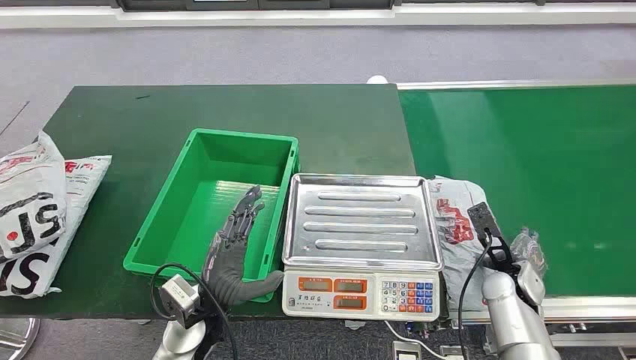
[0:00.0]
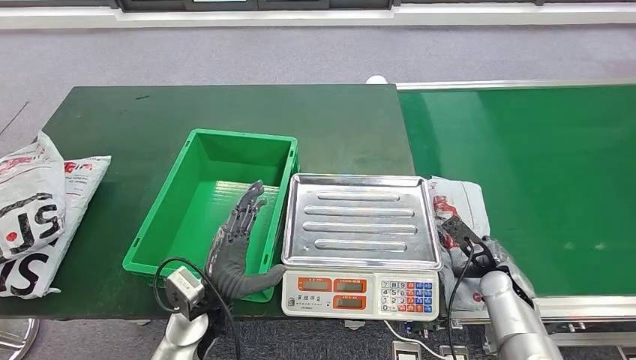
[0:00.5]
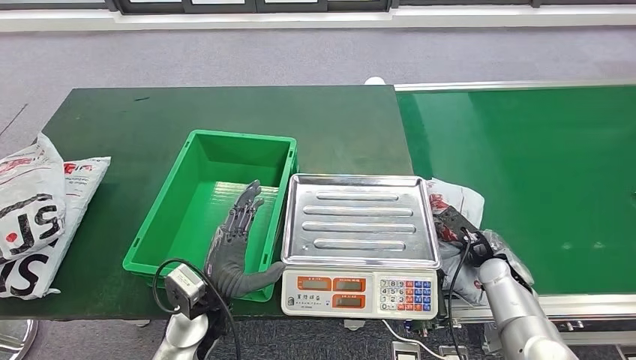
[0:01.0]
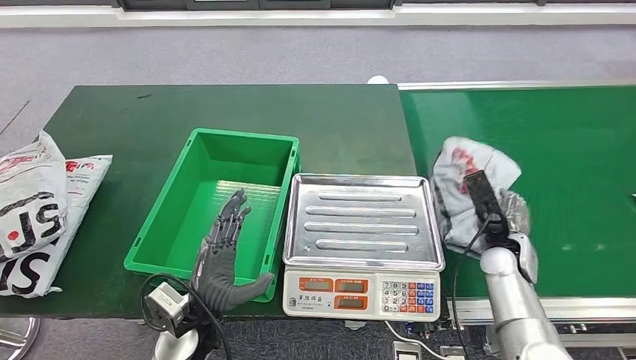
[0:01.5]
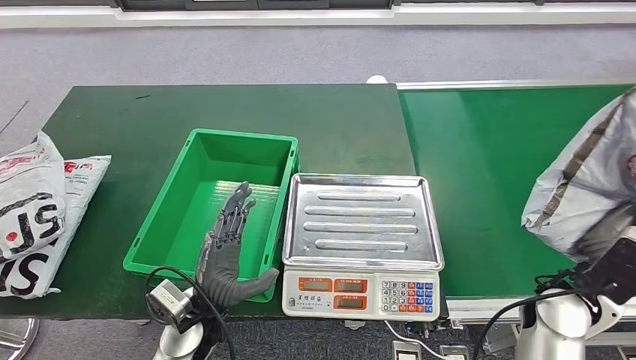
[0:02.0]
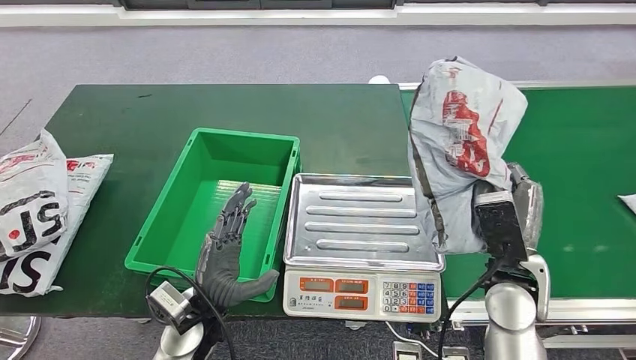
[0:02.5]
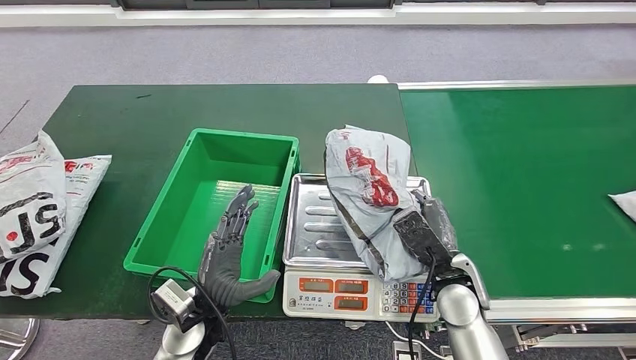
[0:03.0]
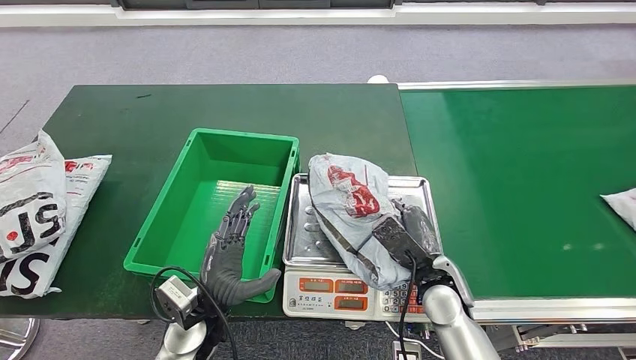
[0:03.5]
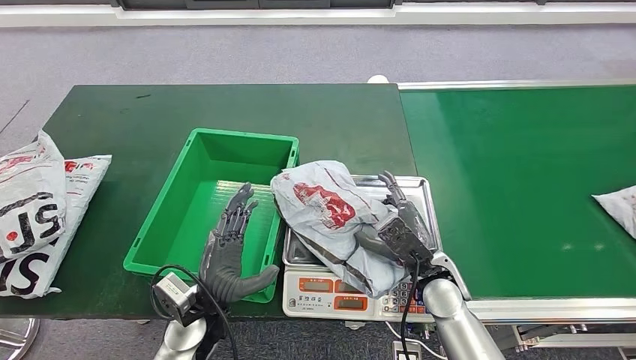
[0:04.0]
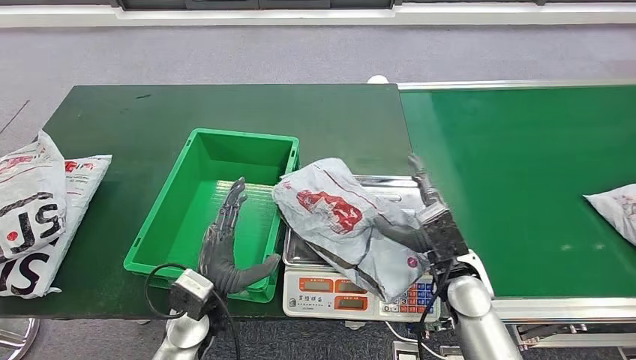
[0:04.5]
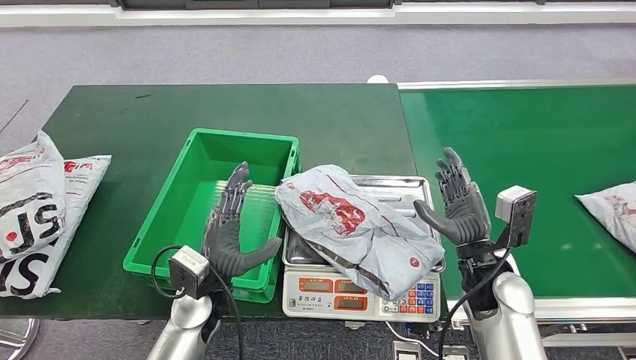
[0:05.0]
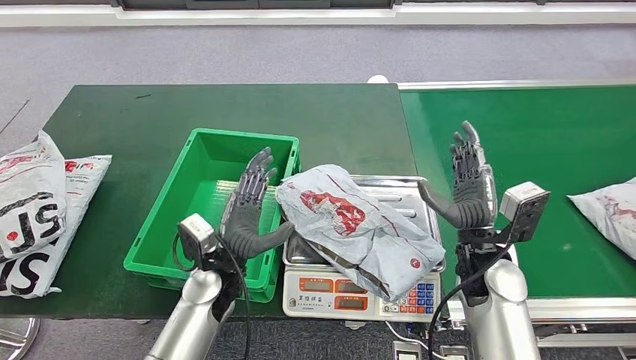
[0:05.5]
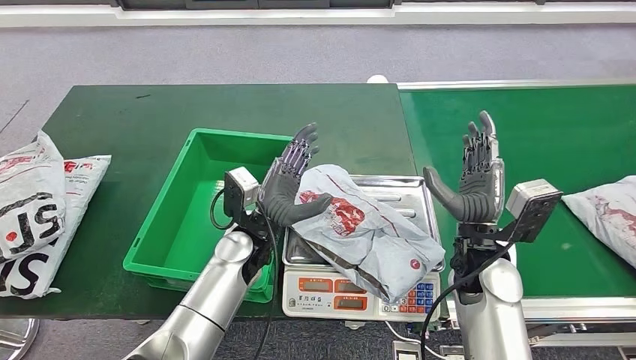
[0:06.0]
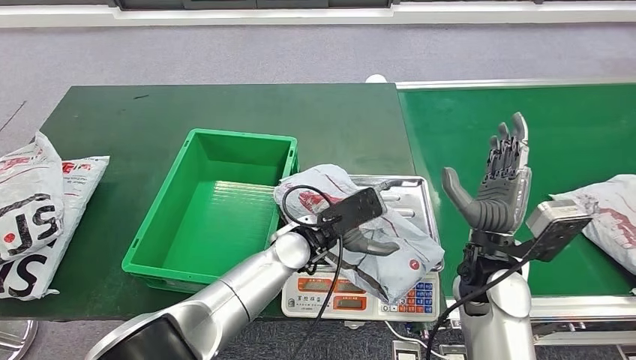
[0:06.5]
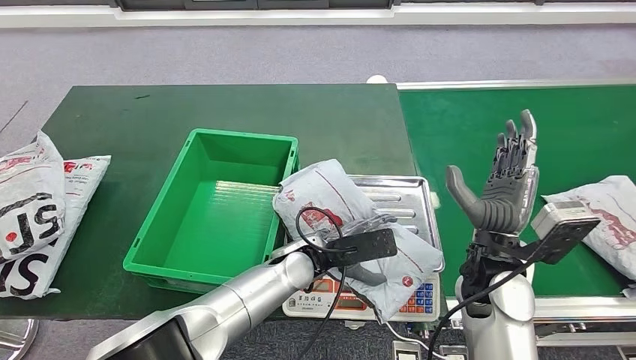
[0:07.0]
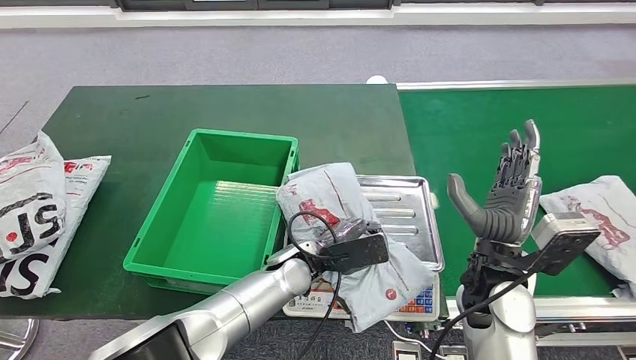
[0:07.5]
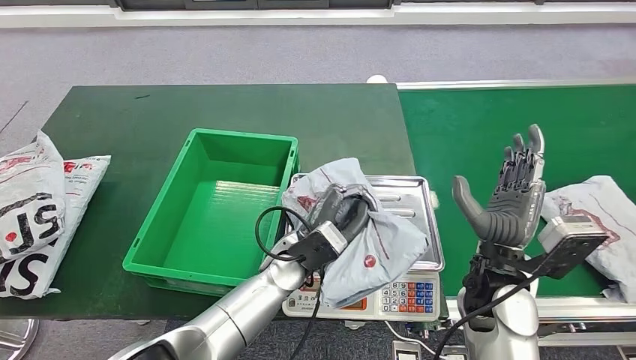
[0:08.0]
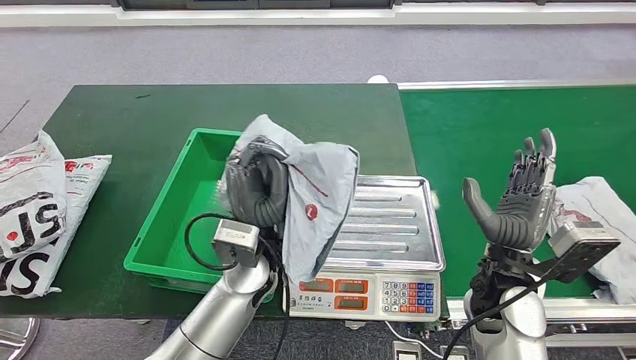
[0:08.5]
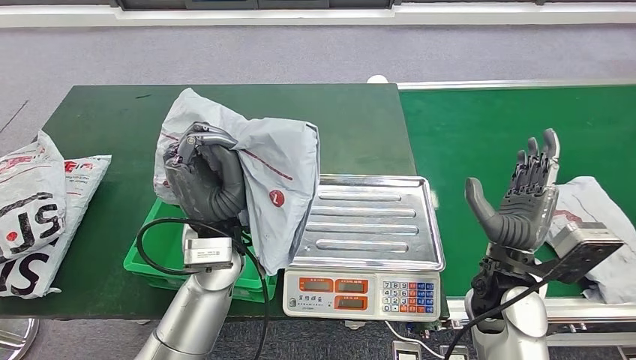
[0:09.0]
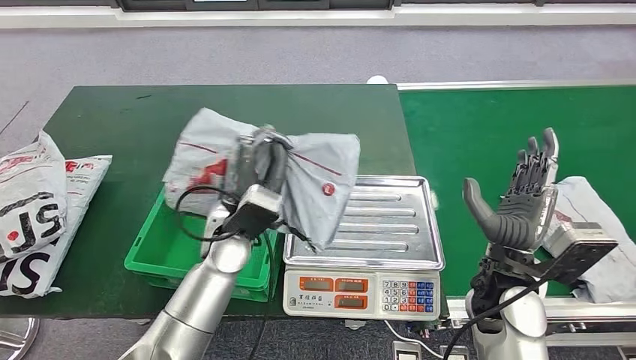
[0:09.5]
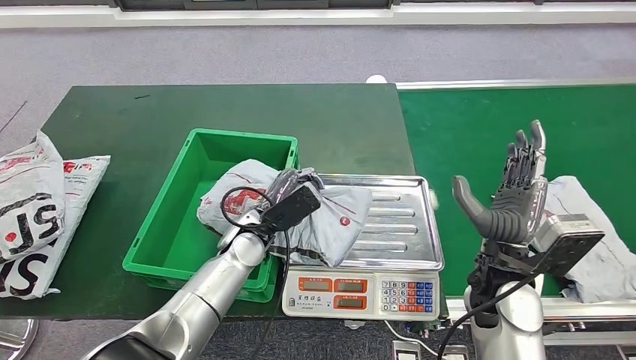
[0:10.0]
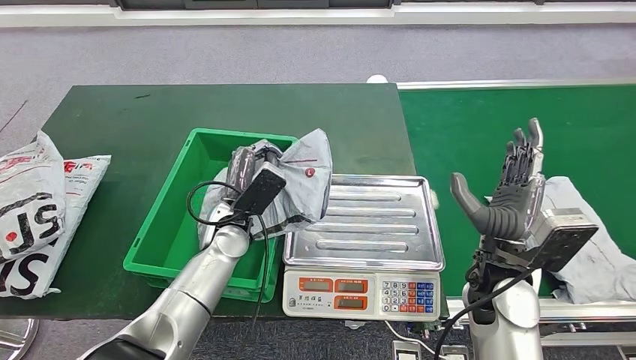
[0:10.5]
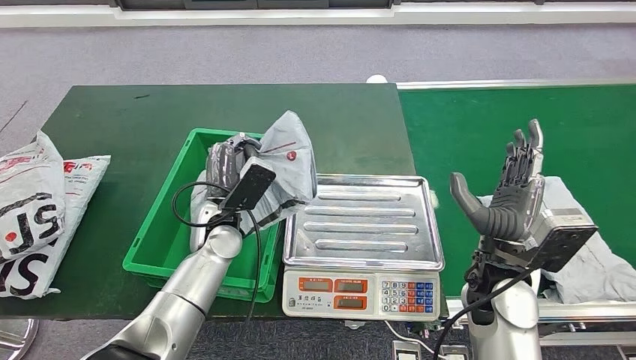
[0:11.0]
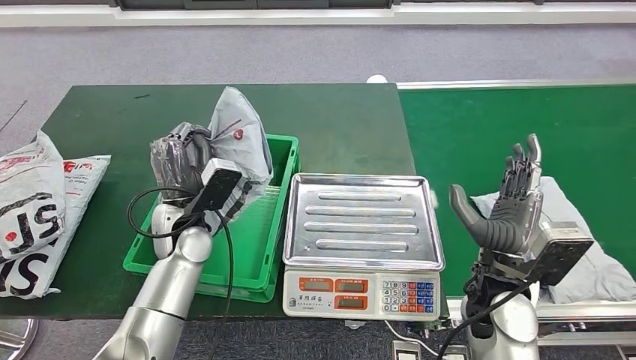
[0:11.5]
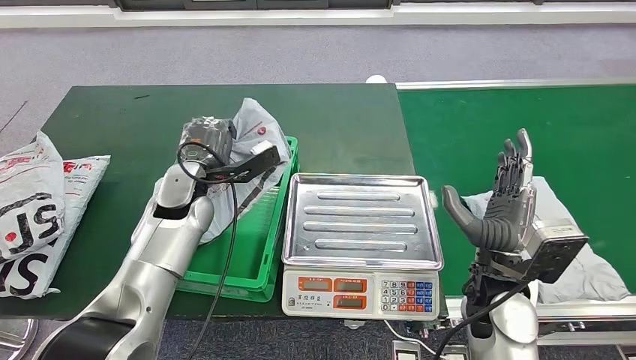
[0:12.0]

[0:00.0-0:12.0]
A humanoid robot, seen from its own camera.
Step, 0:00.0 to 0:02.5: Take the parcel off the conveyor belt.
Step, 0:03.0 to 0:05.0: Place the parcel onto the inbound machine.
Step, 0:05.5 to 0:08.5: Pick up the parcel from the inbound machine.
0:02.0 to 0:04.0: The right hand travels to the left and downward by about 15 cm.
0:04.0 to 0:06.0: The right hand travels upward by some 10 cm; the left hand heads forward, to the right and upward, covering some 15 cm.
0:08.0 to 0:10.0: The left hand goes roughly 10 cm to the left, and moves roughly 10 cm upward and comes back.

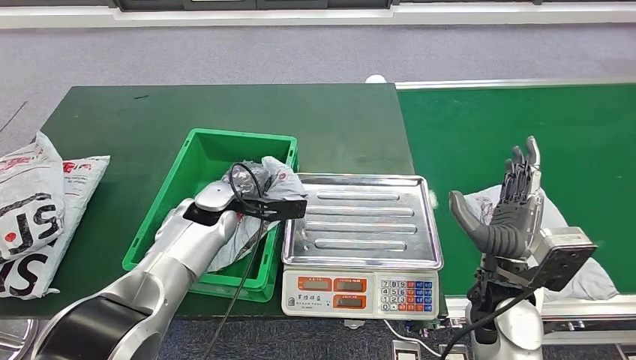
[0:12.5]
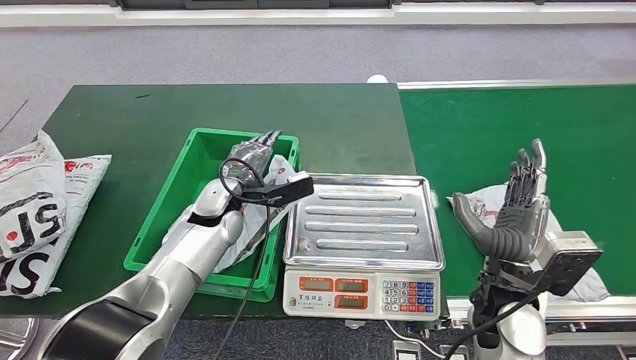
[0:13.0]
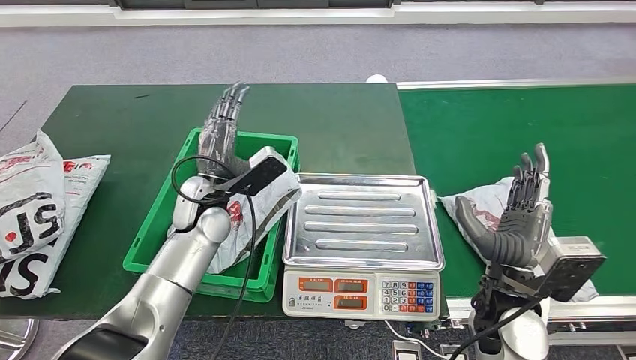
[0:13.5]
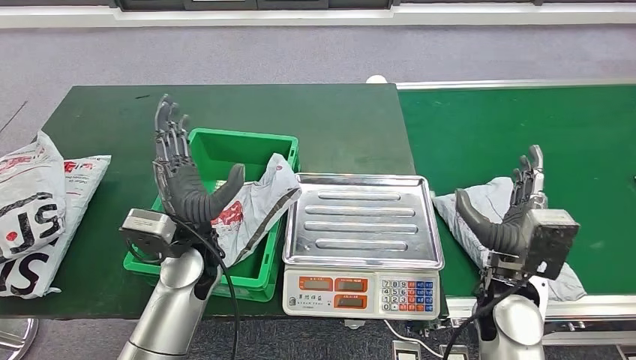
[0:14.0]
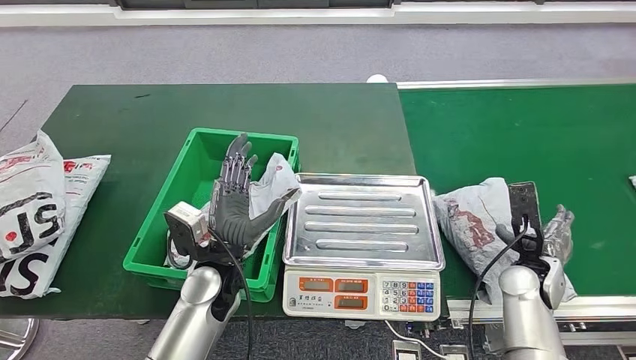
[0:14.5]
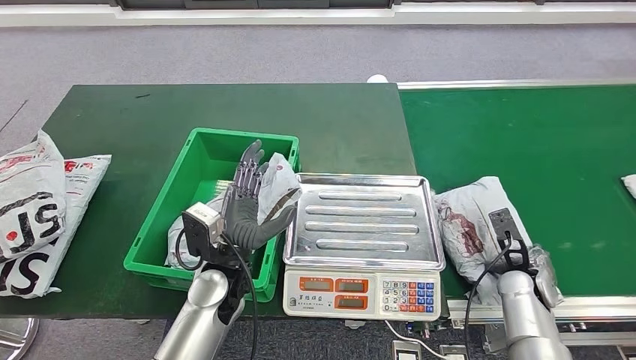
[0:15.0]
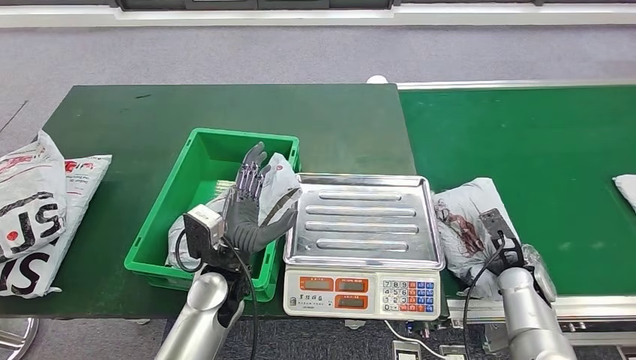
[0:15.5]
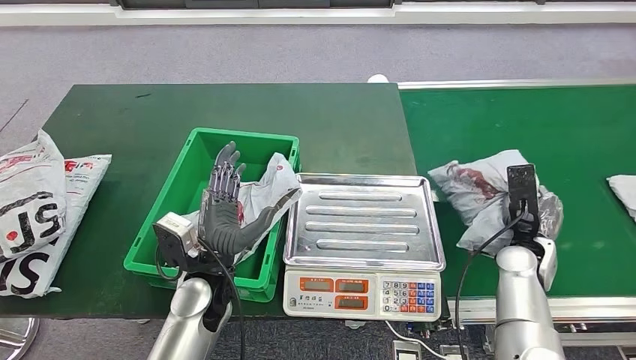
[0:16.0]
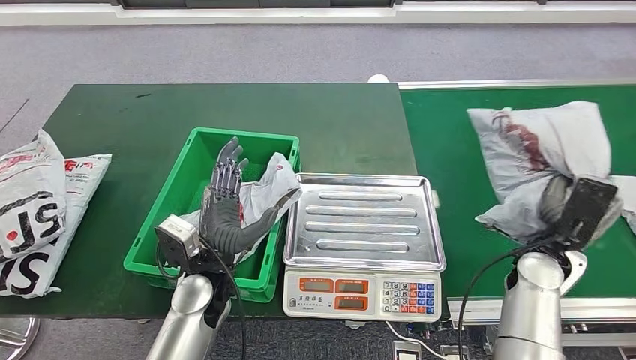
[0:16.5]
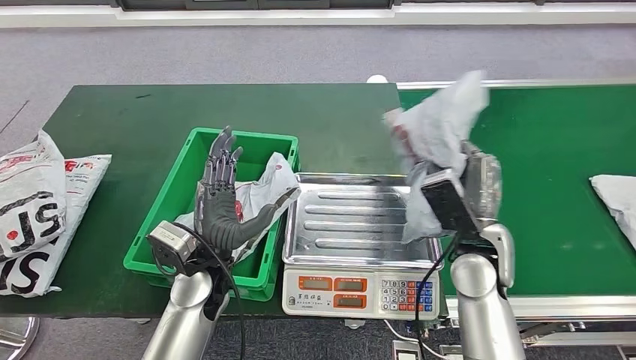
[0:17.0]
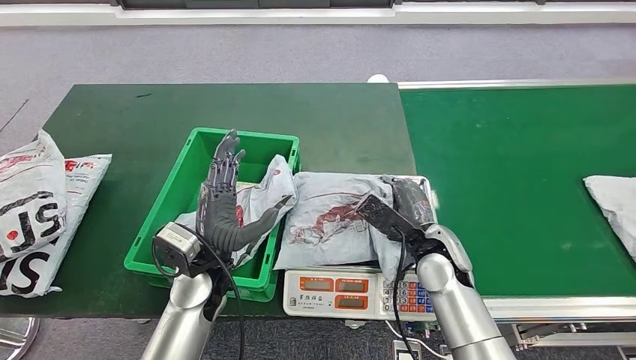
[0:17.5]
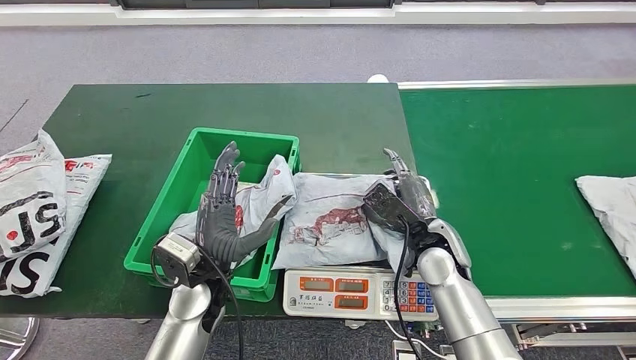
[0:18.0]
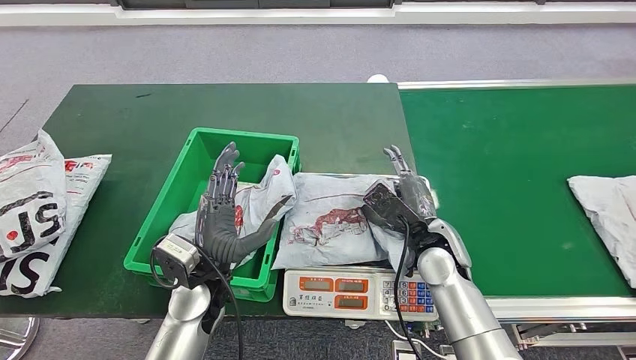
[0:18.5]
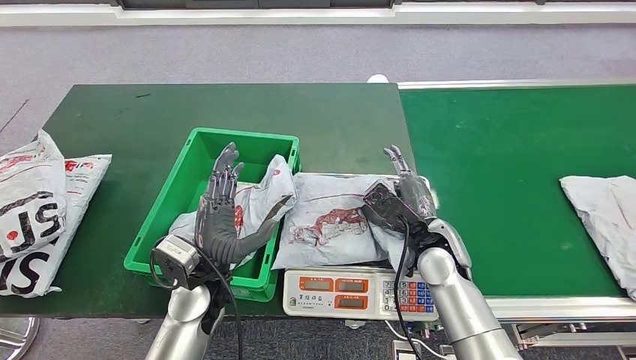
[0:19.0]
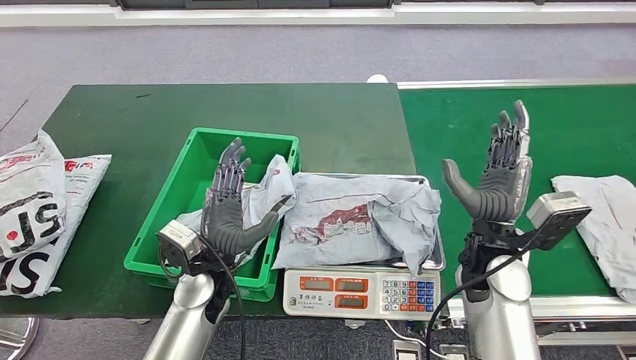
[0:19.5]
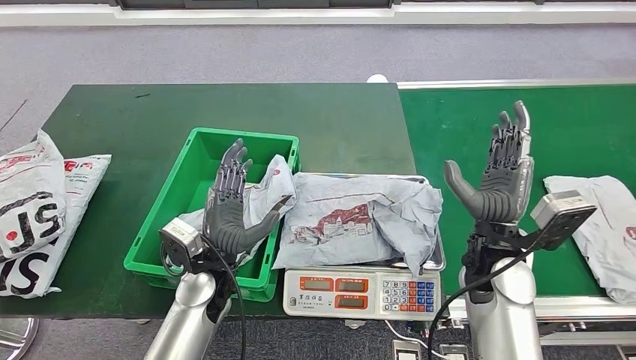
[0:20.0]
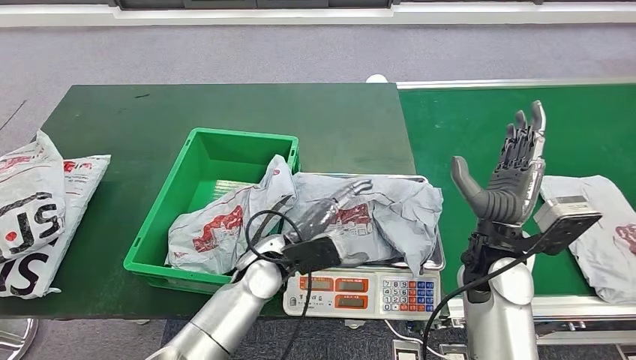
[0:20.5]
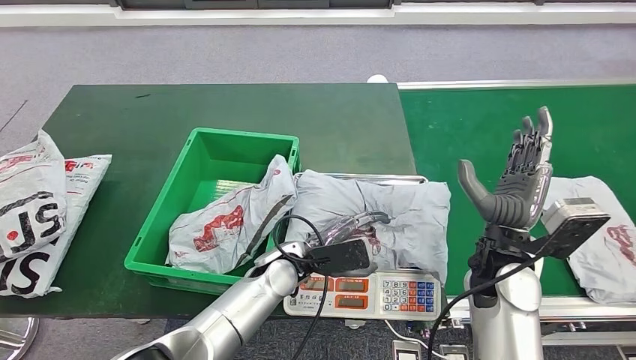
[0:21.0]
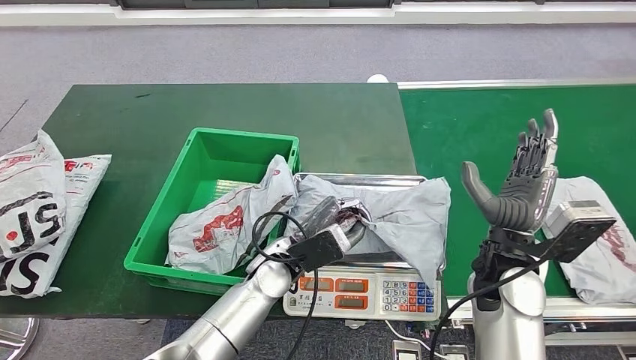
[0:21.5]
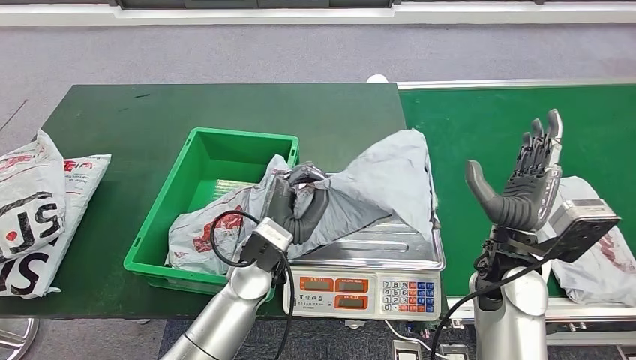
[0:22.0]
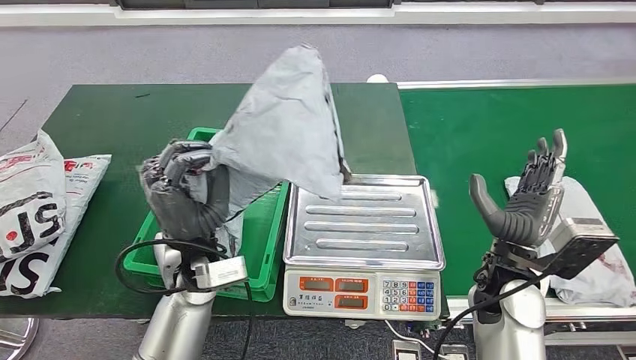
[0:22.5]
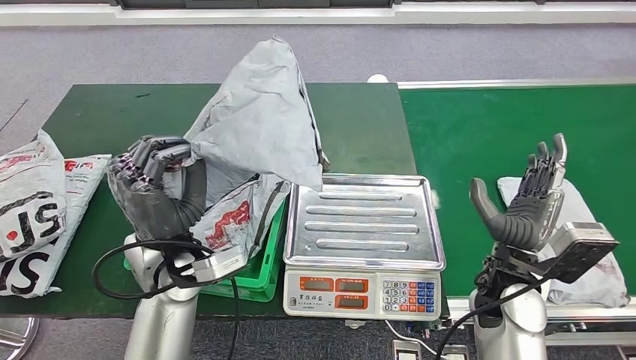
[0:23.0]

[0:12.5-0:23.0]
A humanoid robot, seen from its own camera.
Step, 0:13.5 to 0:16.5: Pick up the parcel from the conveyor belt.
Step, 0:17.0 to 0:19.5: Place the parcel onto the inbound machine.
Step, 0:20.0 to 0:22.5: Pick up the parcel from the inbound machine.
0:14.5 to 0:16.5: The right hand moves roughly 5 cm.
